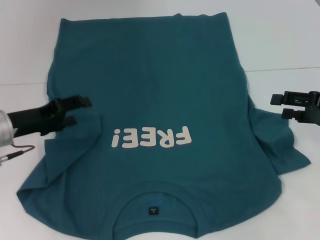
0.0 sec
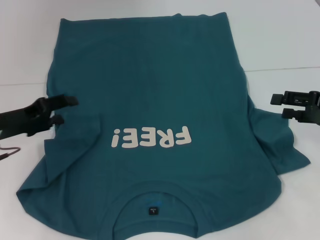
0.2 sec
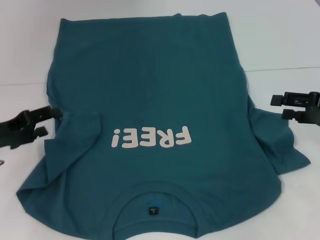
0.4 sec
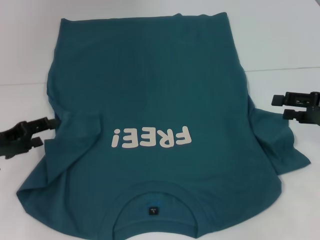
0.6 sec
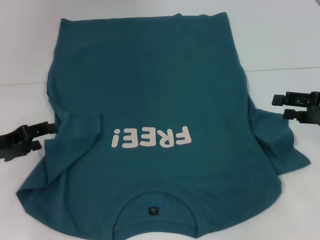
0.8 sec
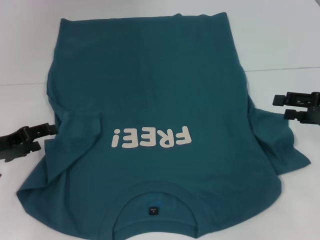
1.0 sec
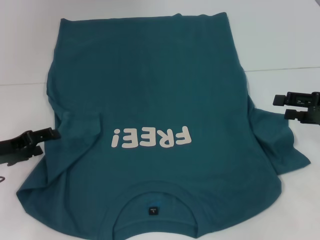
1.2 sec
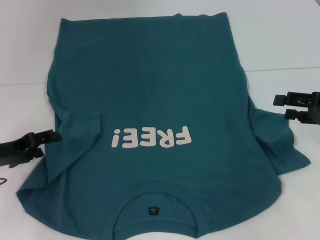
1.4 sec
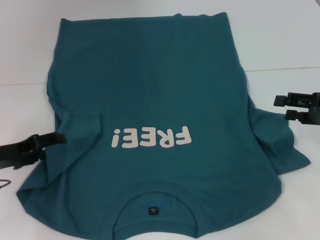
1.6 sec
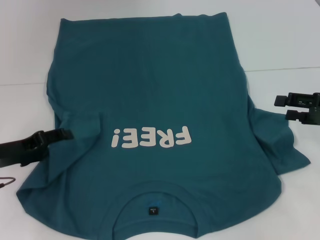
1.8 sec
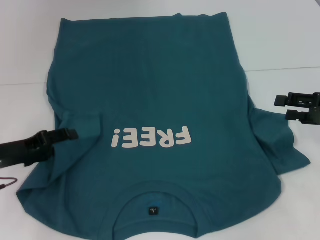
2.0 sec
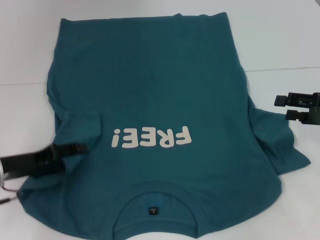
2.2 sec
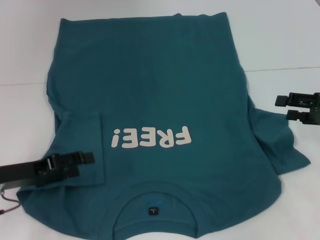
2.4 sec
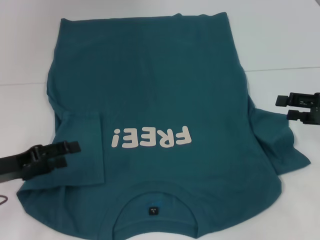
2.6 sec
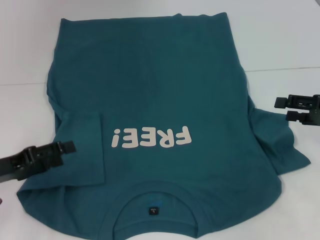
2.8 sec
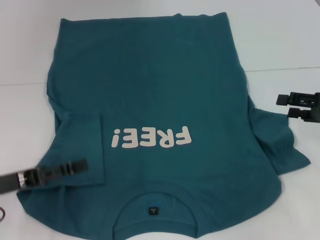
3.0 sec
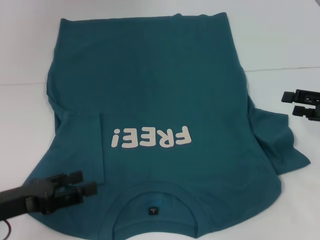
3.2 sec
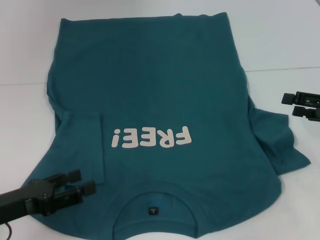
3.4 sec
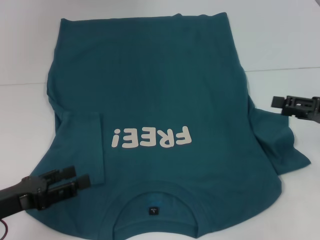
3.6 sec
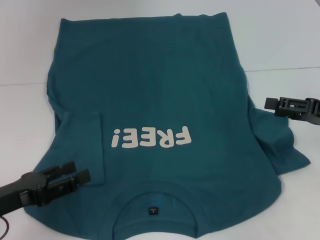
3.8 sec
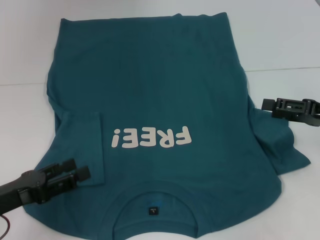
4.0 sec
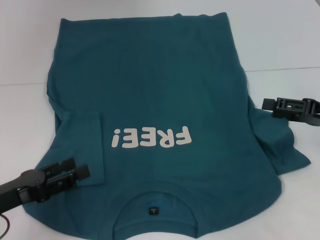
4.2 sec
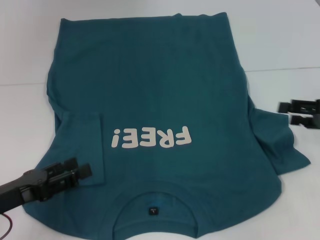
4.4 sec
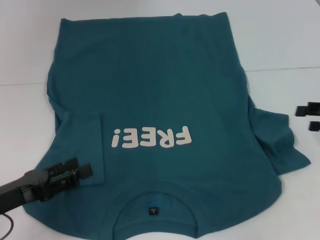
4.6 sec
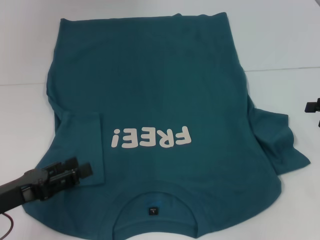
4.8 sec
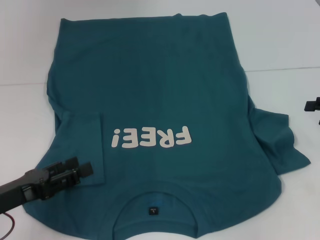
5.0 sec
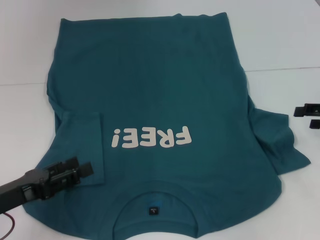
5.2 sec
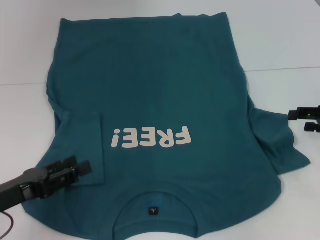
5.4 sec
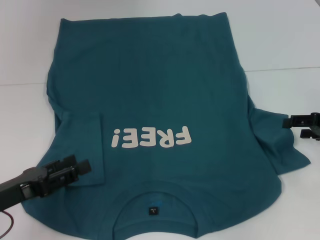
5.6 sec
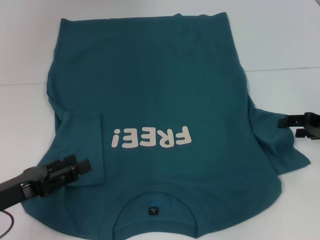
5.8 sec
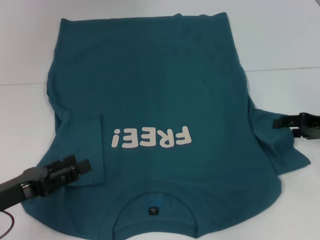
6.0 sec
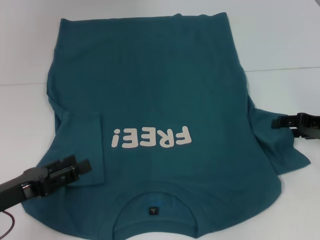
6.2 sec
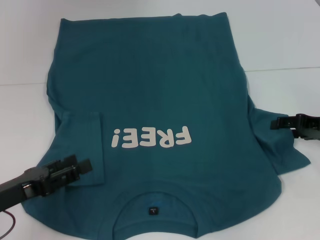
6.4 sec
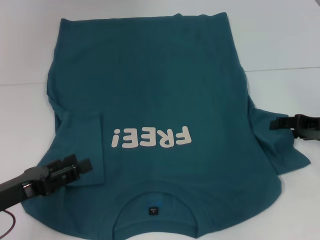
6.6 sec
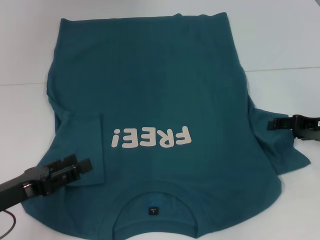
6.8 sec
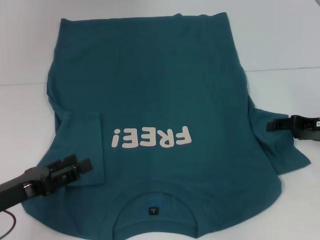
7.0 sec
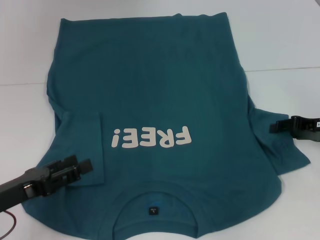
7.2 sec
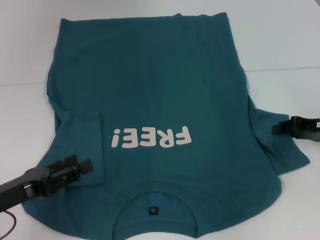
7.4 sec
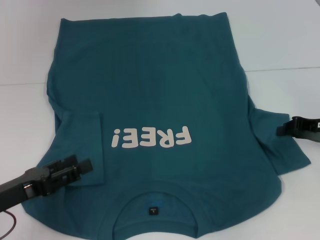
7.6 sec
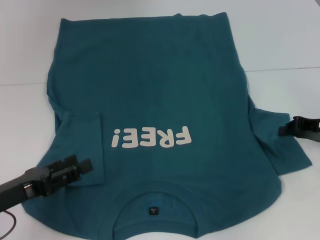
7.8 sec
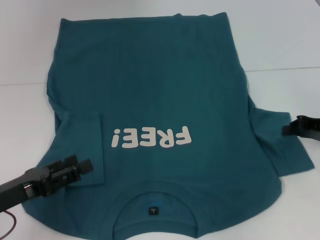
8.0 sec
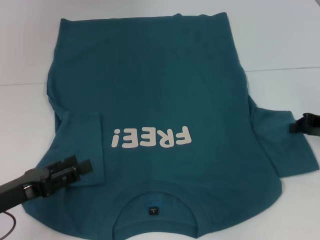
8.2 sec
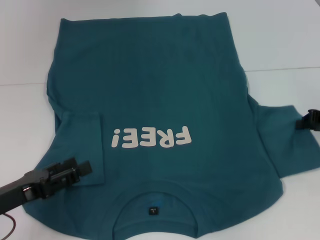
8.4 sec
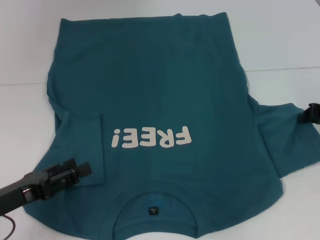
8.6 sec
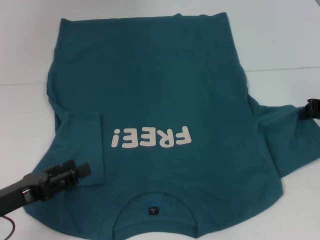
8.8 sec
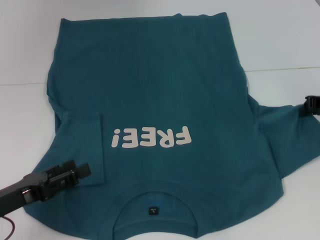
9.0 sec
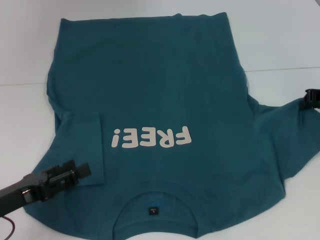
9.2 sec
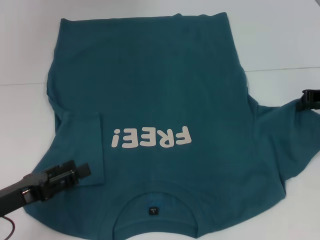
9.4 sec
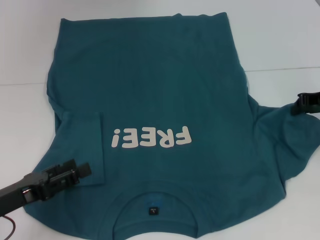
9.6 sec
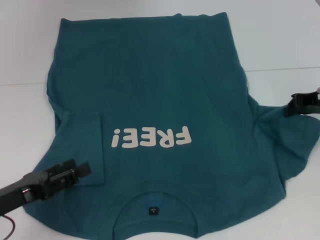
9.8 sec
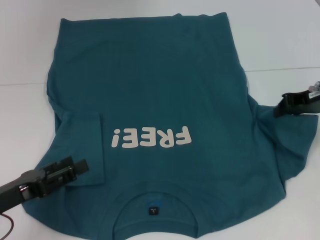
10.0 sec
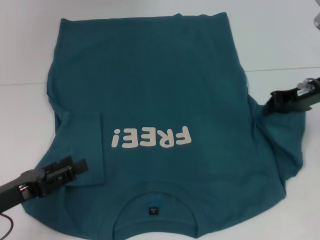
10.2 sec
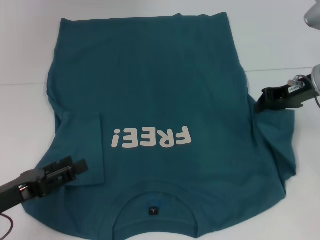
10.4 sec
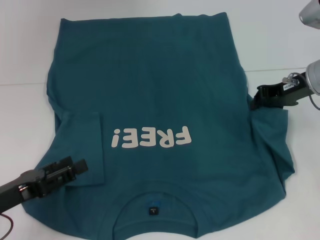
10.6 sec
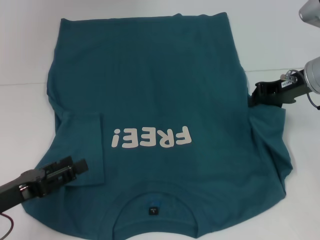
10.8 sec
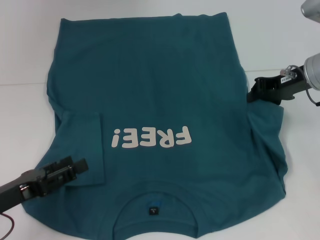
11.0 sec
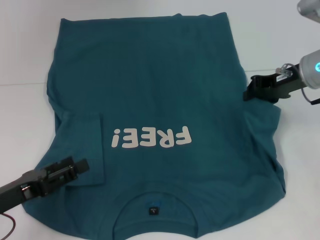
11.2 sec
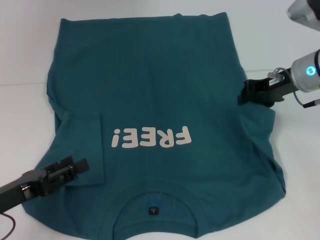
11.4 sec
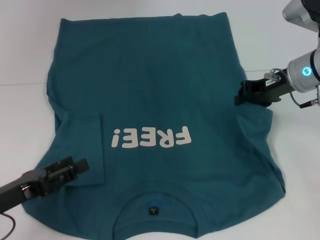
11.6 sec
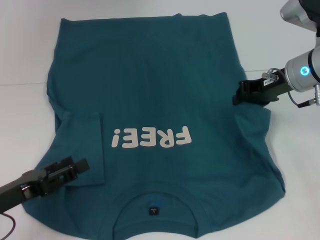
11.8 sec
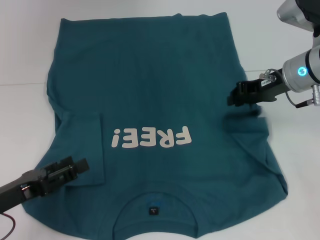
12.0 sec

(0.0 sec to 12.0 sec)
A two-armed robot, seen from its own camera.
Step, 0.0 sec - 2.4 sec: Fold the bottom left sleeve with your left hand.
0.0 sec - 1.6 sec: The left gripper moves about 5 cm.
1.6 sec - 3.0 sec: The left gripper is displaced backward by about 5 cm.
3.0 sec - 6.0 sec: The grippers move only a little.
6.0 sec - 7.6 sec: The right gripper closes.
7.6 sec - 9.0 sec: The right gripper shifts by approximately 5 cm.
9.0 sec - 10.4 sec: The right gripper goes roughly 5 cm to the left.
10.4 sec - 12.0 sec: There are only small adjustments of the grippers.

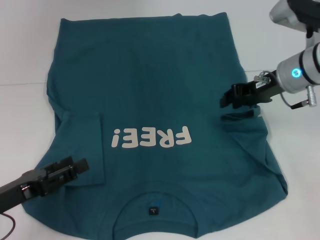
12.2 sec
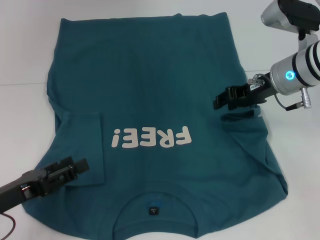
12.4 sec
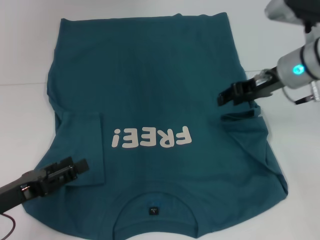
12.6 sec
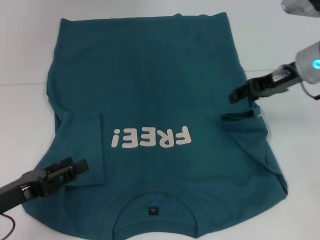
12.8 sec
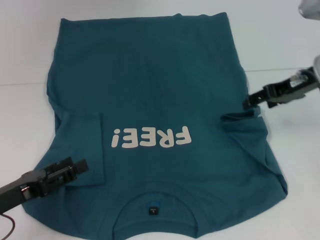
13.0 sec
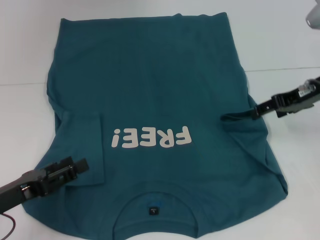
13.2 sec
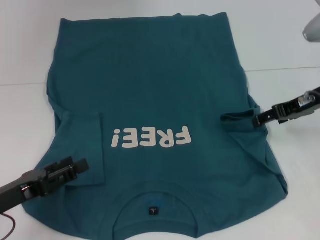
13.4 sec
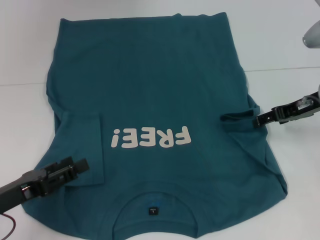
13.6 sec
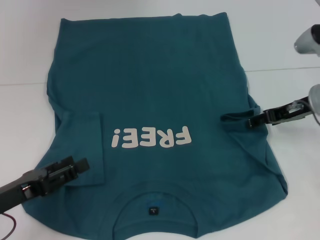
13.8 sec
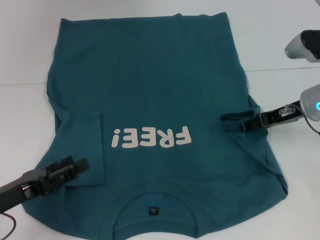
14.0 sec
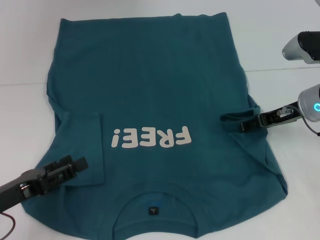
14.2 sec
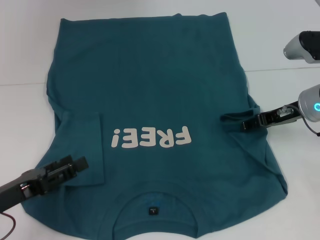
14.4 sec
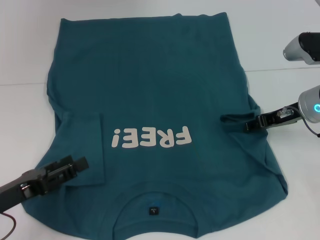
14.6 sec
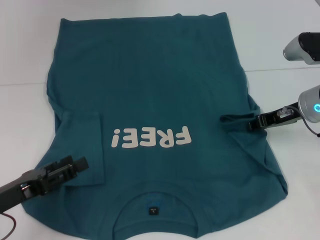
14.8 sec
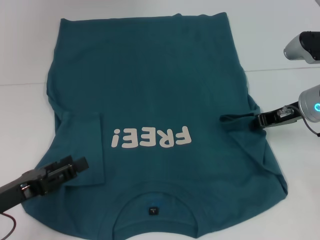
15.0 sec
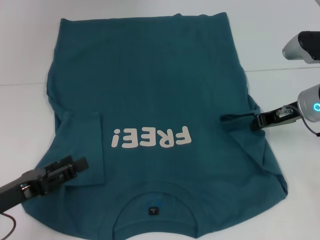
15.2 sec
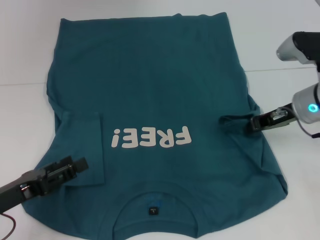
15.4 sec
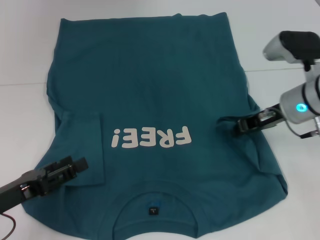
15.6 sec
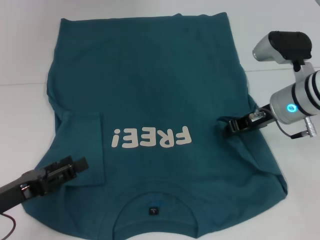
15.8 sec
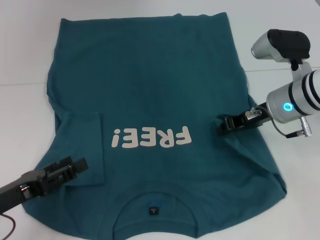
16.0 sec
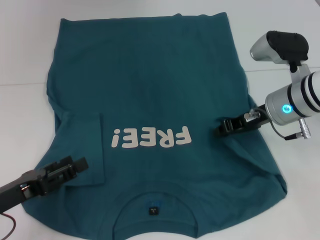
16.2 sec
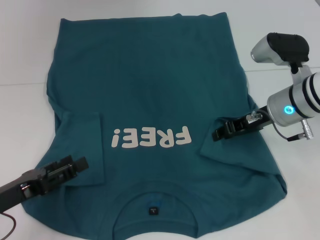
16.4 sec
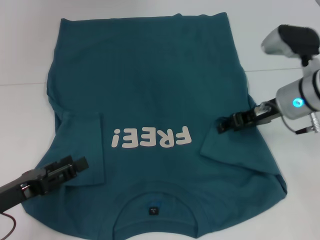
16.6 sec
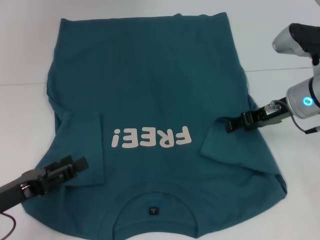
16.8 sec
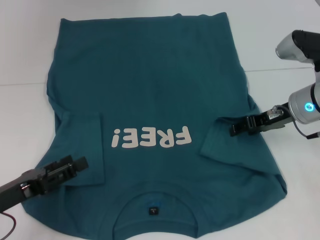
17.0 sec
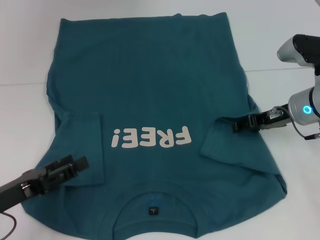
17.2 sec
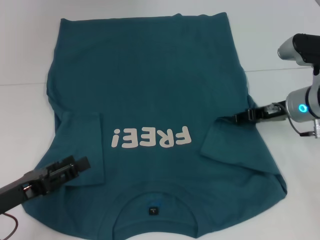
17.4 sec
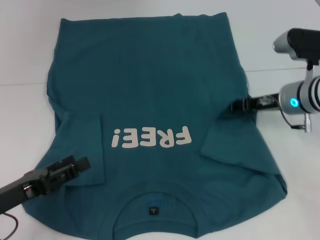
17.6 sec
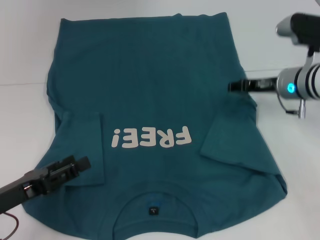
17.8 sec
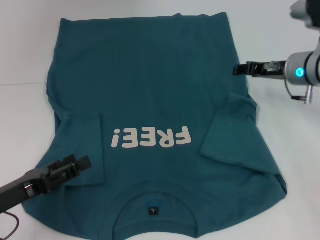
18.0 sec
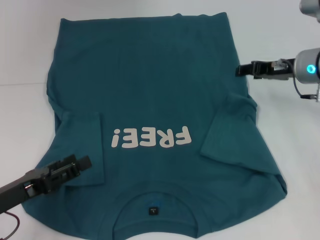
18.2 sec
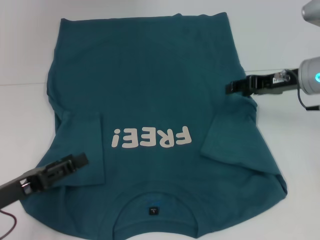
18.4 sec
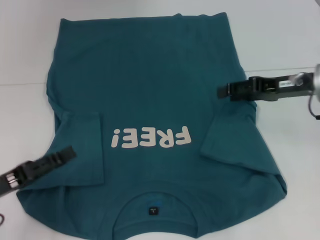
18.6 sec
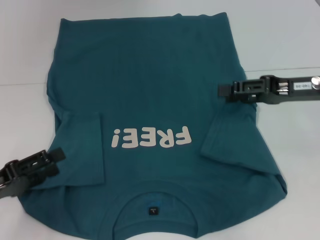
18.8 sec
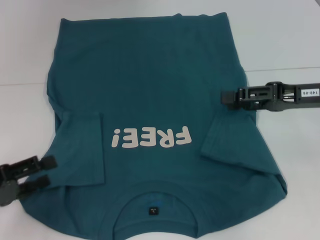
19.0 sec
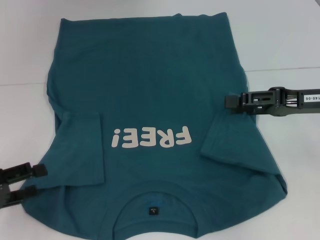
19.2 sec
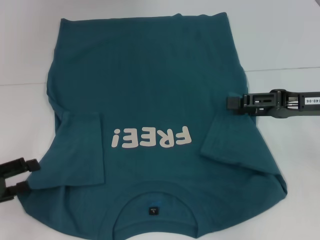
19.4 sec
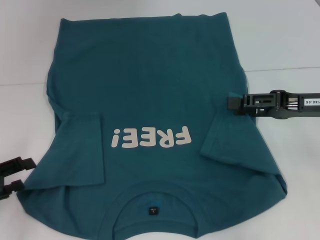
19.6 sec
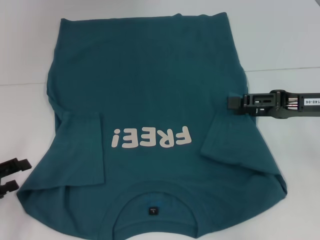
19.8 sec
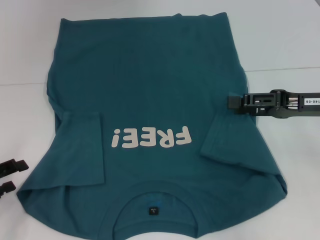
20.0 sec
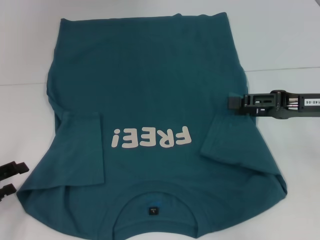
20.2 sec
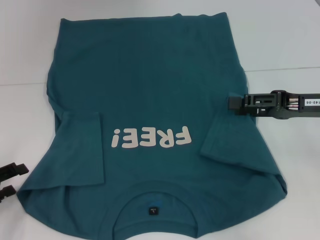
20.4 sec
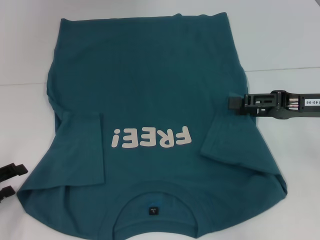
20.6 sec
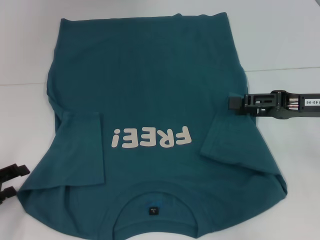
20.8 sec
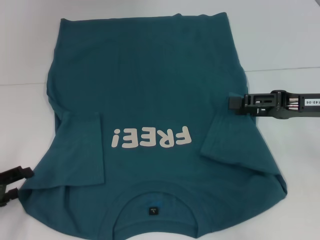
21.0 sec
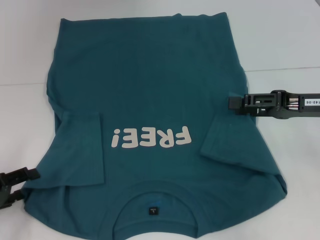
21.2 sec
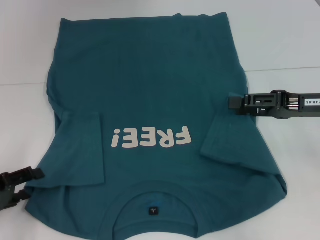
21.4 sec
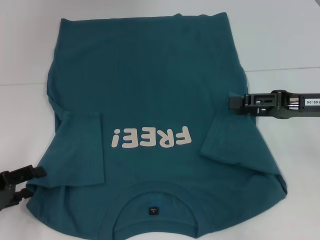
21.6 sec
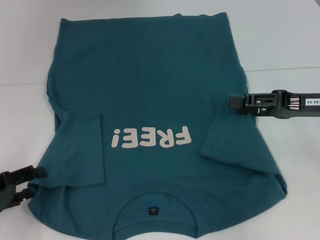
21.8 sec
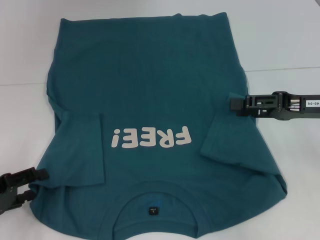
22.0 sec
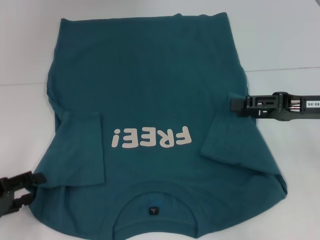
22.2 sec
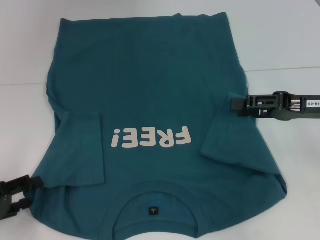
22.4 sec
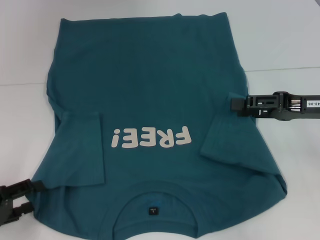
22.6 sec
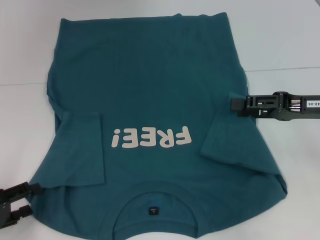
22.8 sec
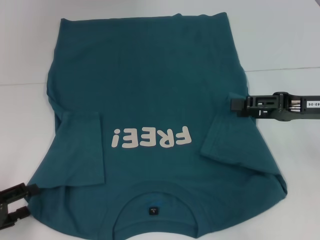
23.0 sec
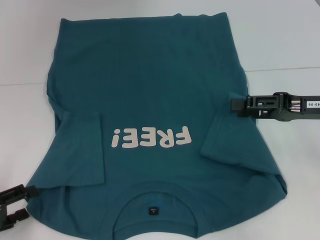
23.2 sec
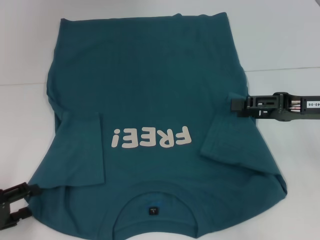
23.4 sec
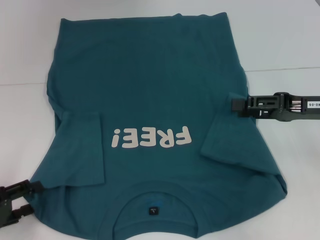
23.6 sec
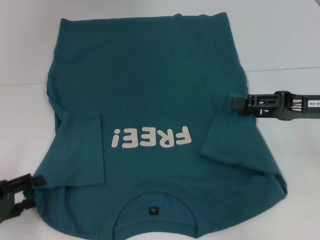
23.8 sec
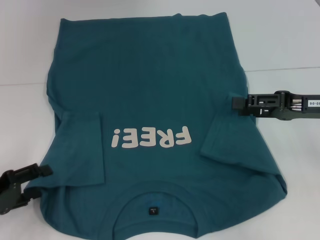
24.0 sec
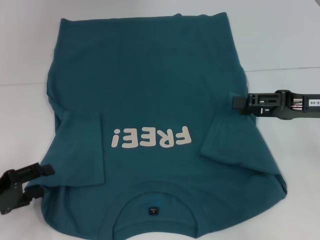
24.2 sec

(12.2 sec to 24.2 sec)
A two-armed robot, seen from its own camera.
Step, 12.2 sec - 18.2 sec: Fold the bottom right sleeve to the right.
12.2 sec - 13.8 sec: The right gripper moves approximately 5 cm, and opens its fingers.
13.8 sec - 15.2 sec: The right gripper closes up.
15.2 sec - 16.6 sec: The grippers stay close to where they were, moving slightly.
18.2 sec - 19.8 sec: The right gripper travels backward by some 10 cm. The left gripper moves to the left, approximately 5 cm.
19.8 sec - 24.2 sec: The grippers move only a little.
